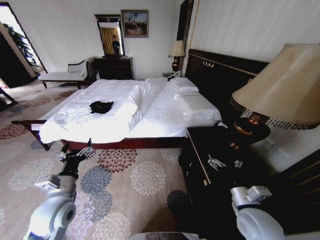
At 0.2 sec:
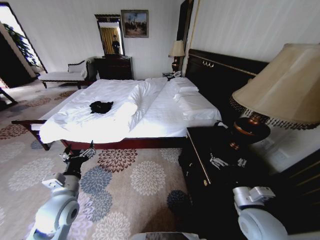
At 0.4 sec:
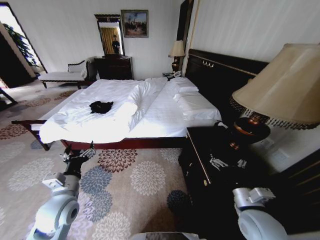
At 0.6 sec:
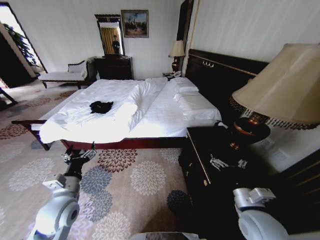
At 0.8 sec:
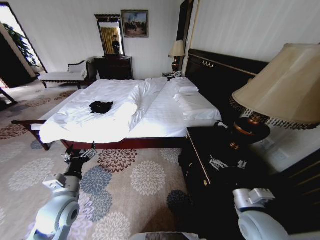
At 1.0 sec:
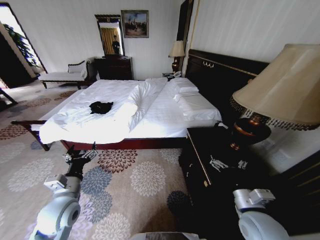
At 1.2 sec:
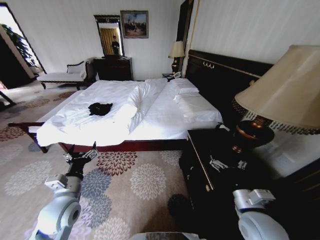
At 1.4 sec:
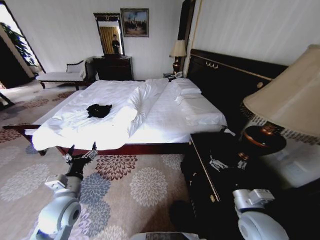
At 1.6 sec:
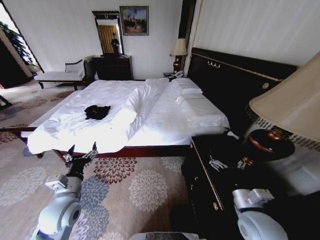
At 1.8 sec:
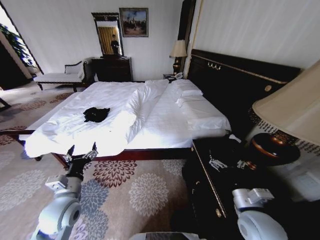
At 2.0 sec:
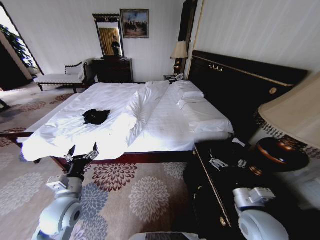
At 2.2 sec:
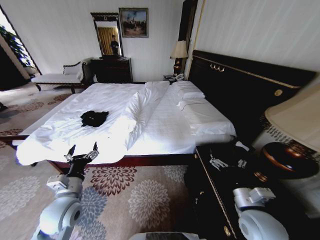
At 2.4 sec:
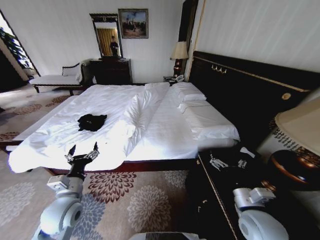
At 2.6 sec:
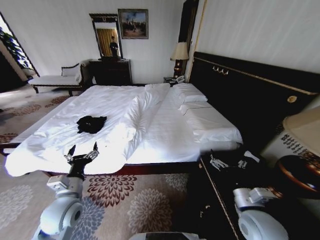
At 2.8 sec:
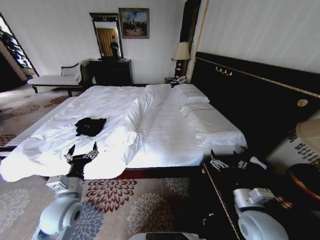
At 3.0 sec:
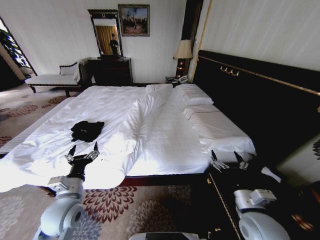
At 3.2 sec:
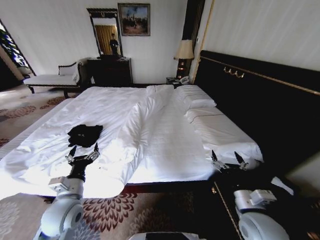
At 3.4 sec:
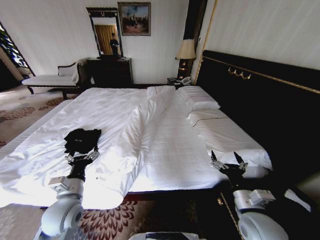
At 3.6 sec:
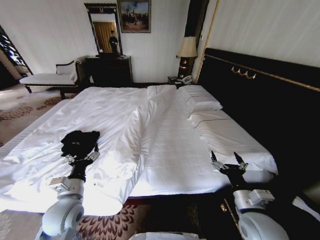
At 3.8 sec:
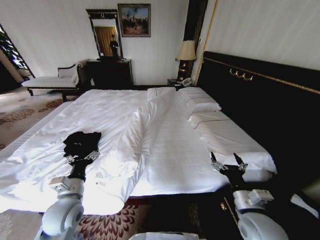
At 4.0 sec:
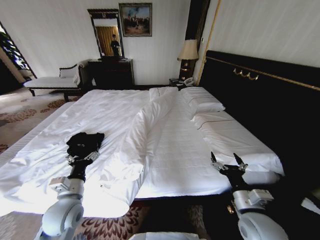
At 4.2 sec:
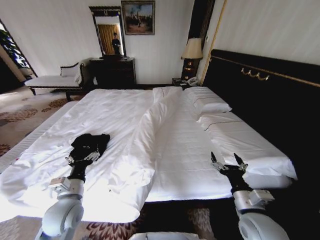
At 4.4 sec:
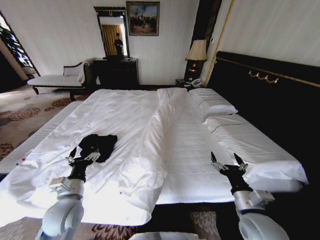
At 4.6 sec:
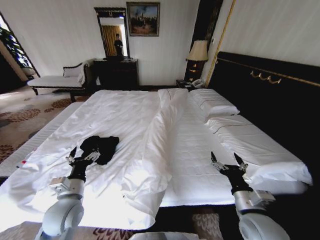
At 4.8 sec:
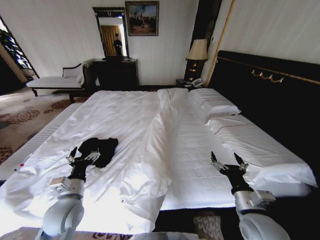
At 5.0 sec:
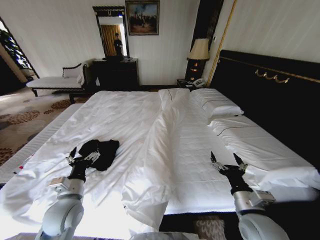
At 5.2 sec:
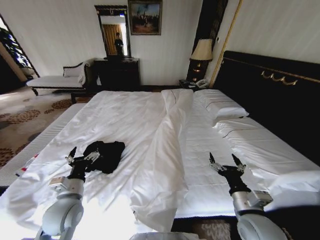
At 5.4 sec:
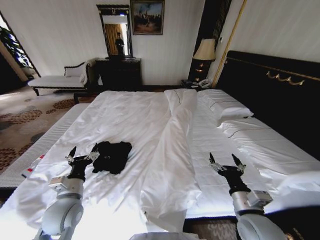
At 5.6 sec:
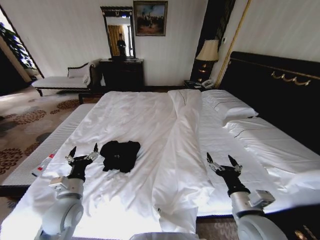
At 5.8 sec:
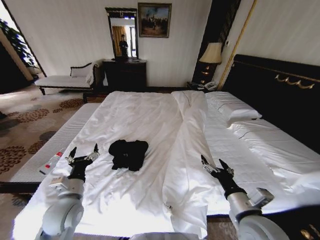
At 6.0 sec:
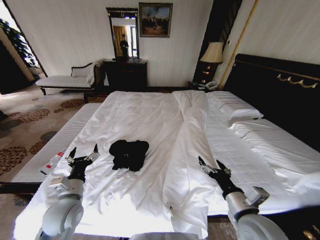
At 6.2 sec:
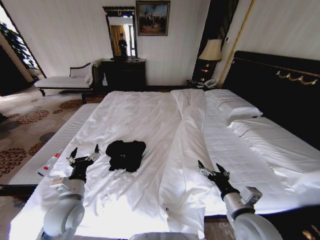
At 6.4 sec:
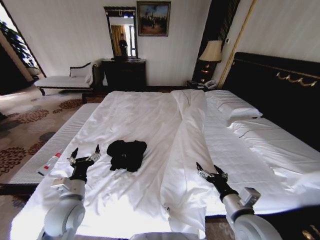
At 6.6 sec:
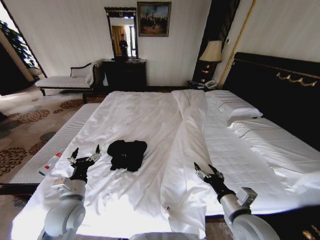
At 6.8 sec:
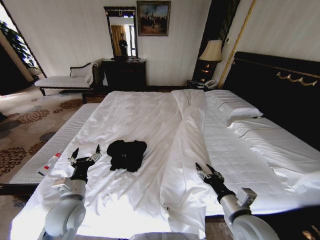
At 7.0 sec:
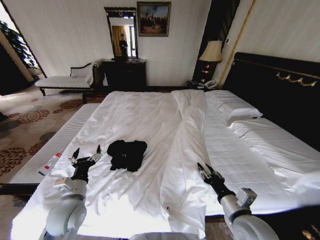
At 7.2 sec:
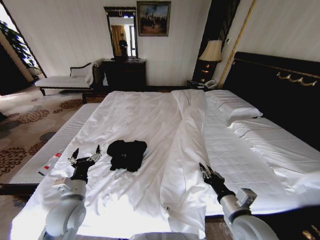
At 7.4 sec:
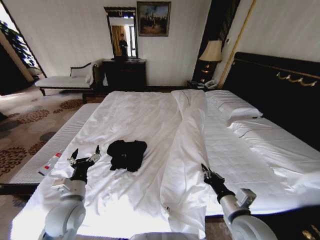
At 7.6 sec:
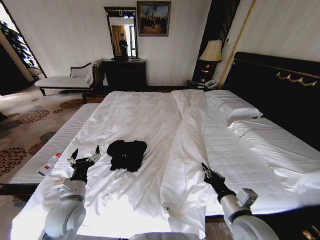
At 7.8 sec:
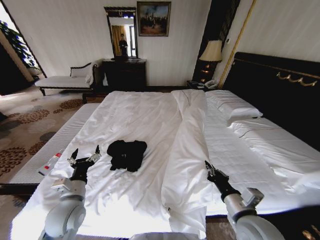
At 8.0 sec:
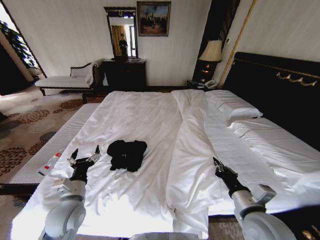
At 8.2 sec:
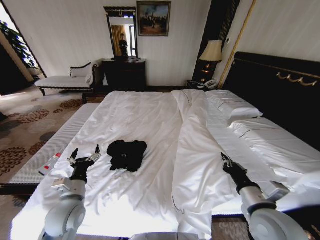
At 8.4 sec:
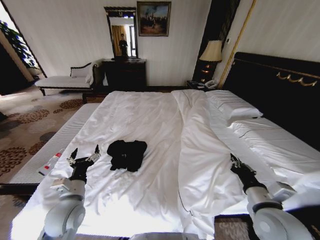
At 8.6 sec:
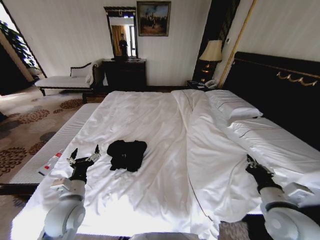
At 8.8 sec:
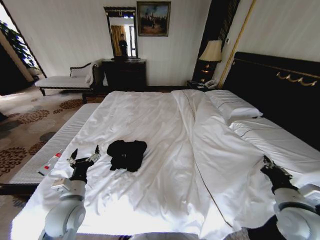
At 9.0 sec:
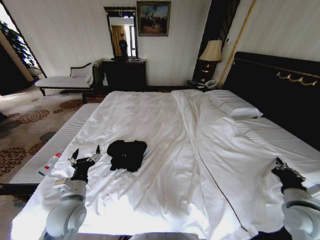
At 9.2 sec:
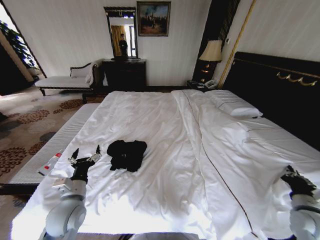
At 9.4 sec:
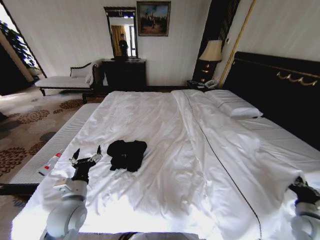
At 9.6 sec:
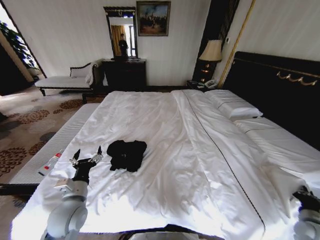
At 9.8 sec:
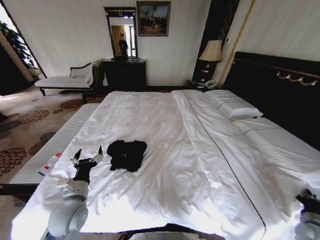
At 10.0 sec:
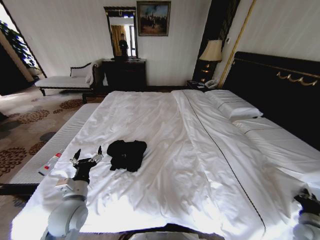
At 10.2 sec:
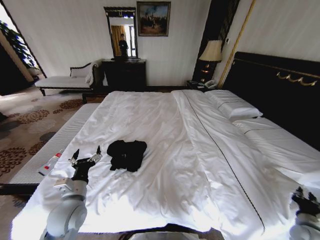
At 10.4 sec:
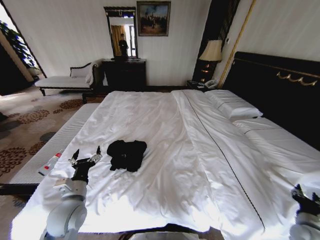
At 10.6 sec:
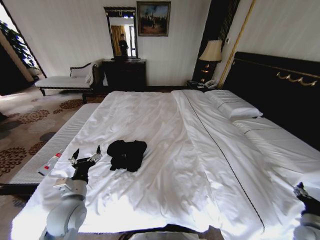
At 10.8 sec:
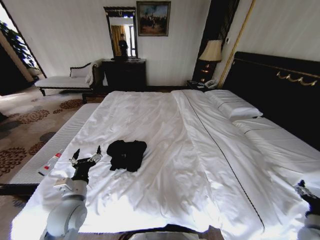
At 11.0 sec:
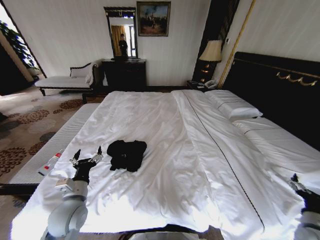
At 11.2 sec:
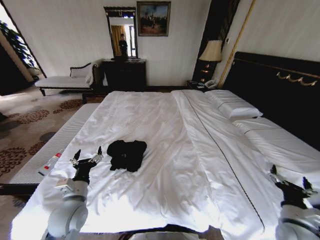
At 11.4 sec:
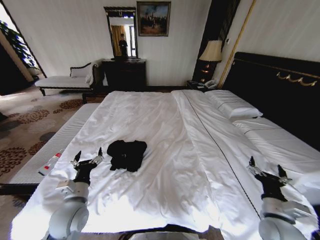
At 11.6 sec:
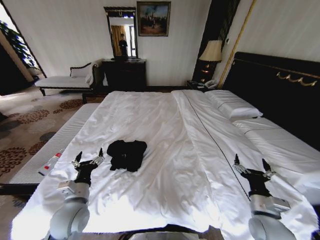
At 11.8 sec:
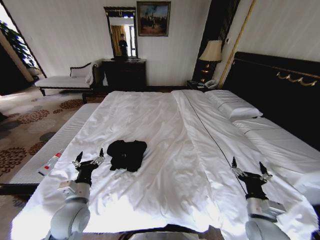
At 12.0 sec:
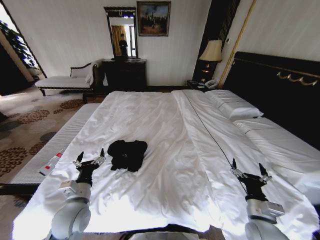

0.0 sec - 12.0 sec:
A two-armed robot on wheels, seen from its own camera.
Task of the whole recording: Fold the clothes on the bed.
6.0 sec - 7.6 sec: The right gripper closes up.
7.6 sec - 9.0 sec: The right gripper goes some 20 cm to the right.
9.0 sec - 10.4 sec: The right gripper is displaced downward and to the right by approximately 15 cm, and opens its fingers.
10.4 sec - 12.0 sec: The right gripper shifts about 20 cm to the left, and opens.

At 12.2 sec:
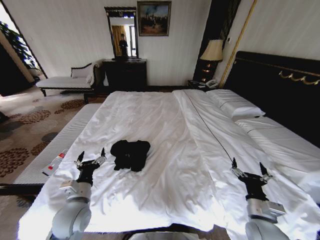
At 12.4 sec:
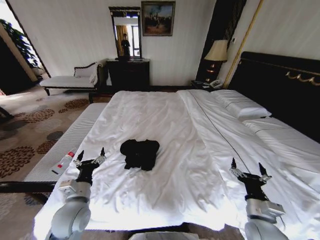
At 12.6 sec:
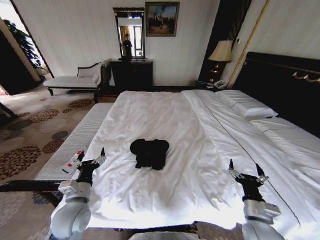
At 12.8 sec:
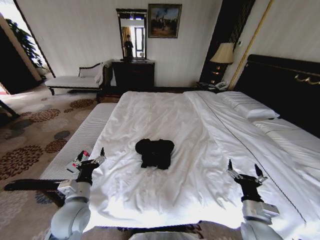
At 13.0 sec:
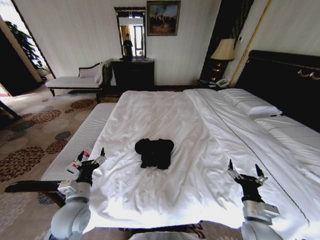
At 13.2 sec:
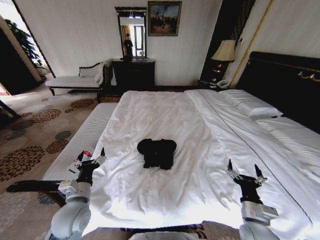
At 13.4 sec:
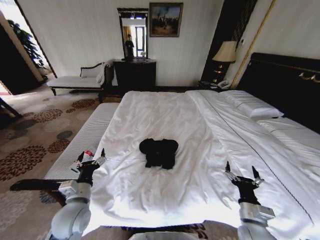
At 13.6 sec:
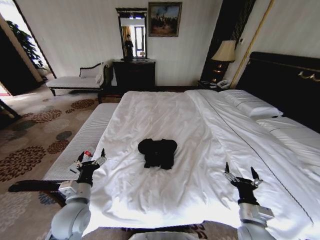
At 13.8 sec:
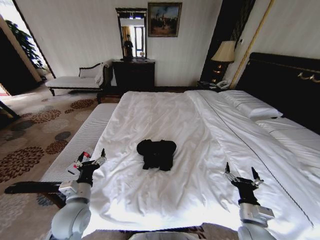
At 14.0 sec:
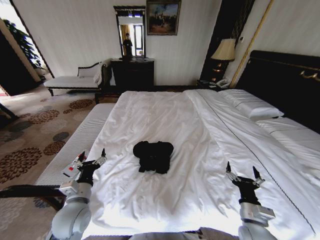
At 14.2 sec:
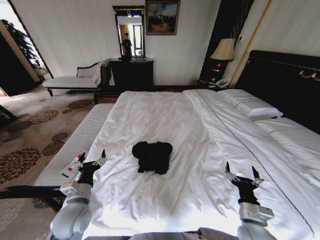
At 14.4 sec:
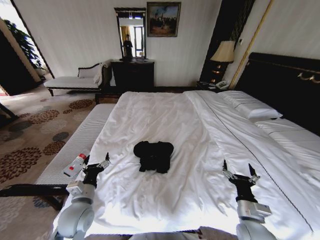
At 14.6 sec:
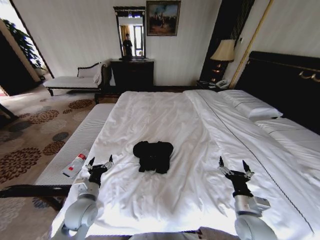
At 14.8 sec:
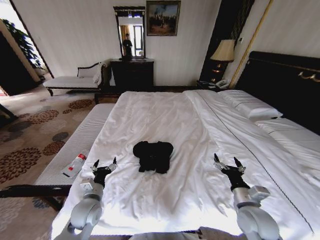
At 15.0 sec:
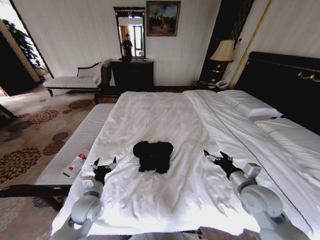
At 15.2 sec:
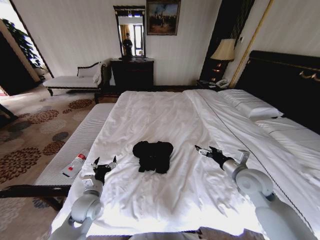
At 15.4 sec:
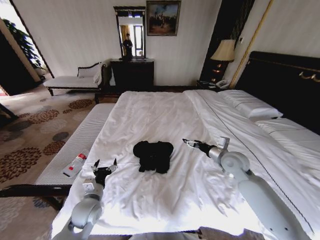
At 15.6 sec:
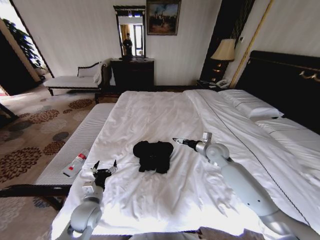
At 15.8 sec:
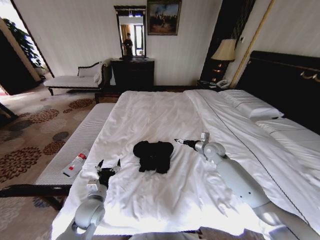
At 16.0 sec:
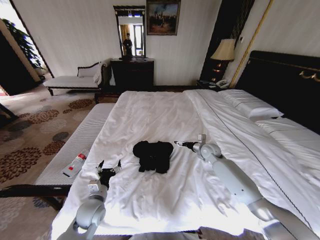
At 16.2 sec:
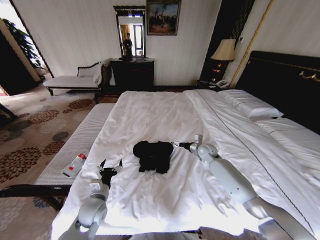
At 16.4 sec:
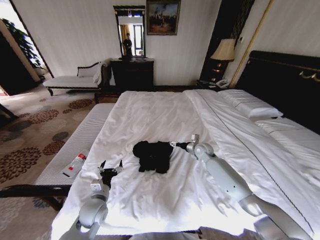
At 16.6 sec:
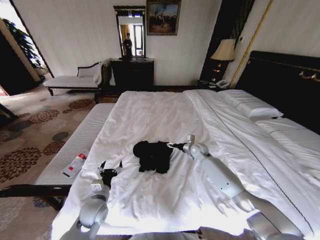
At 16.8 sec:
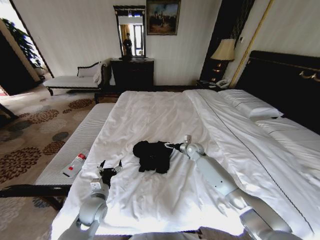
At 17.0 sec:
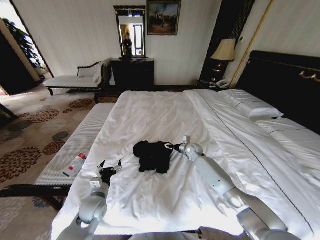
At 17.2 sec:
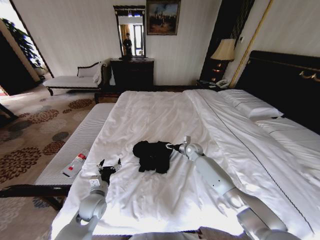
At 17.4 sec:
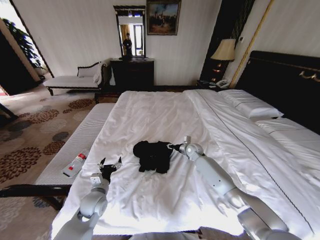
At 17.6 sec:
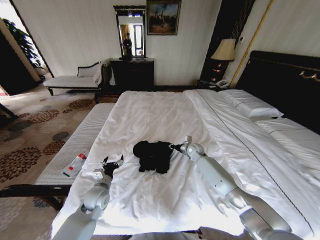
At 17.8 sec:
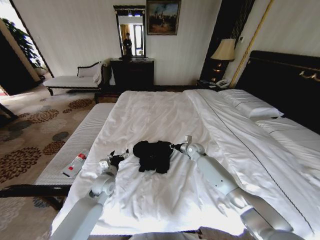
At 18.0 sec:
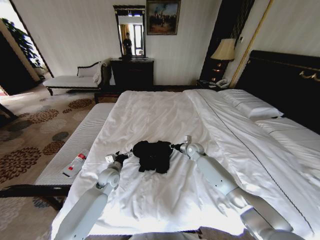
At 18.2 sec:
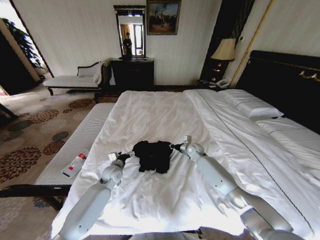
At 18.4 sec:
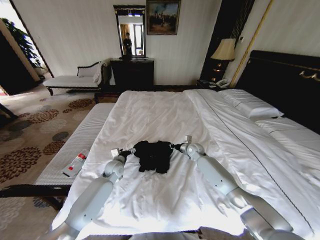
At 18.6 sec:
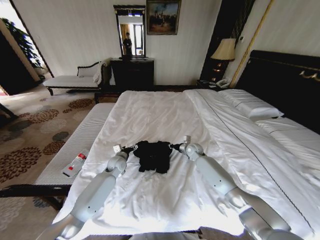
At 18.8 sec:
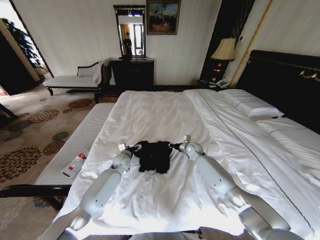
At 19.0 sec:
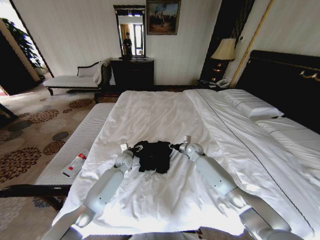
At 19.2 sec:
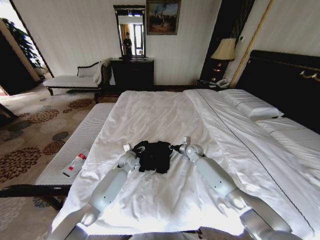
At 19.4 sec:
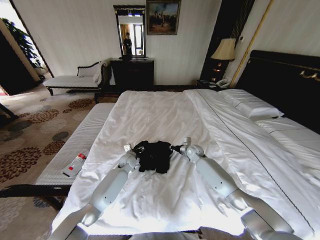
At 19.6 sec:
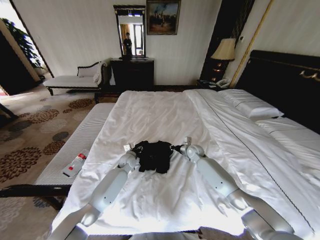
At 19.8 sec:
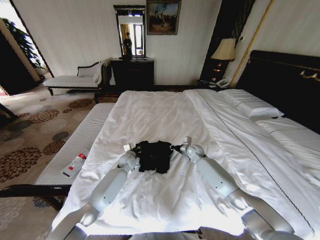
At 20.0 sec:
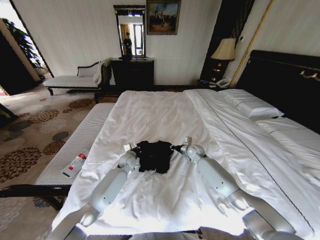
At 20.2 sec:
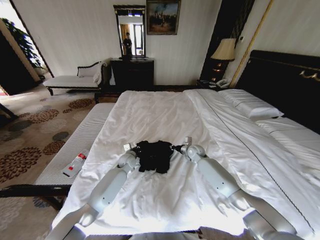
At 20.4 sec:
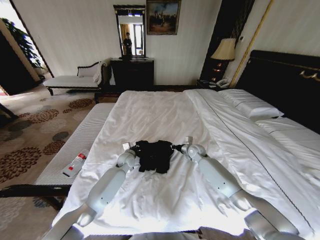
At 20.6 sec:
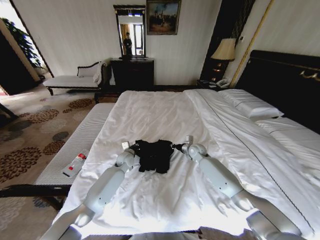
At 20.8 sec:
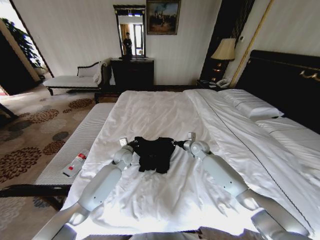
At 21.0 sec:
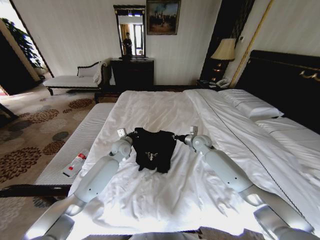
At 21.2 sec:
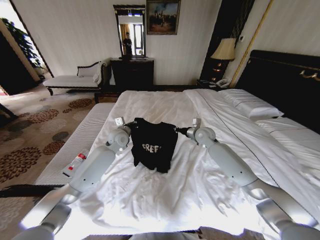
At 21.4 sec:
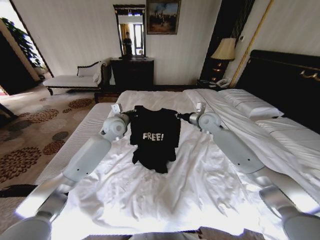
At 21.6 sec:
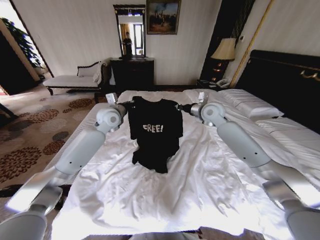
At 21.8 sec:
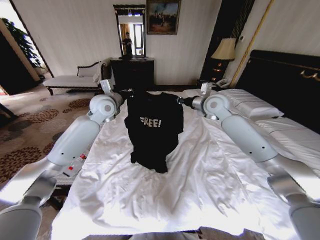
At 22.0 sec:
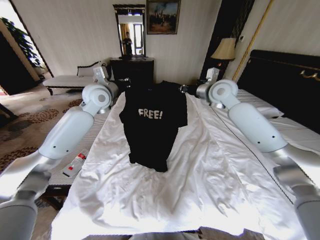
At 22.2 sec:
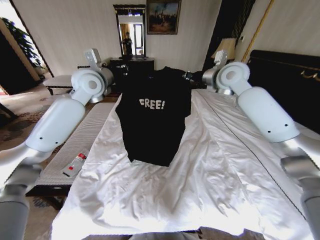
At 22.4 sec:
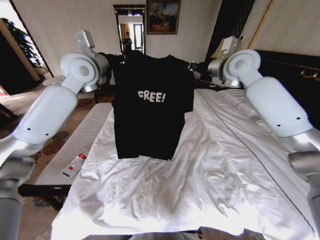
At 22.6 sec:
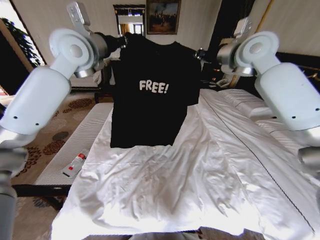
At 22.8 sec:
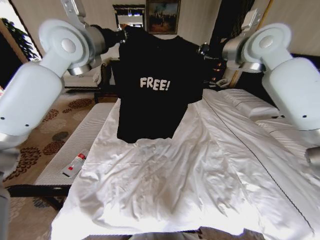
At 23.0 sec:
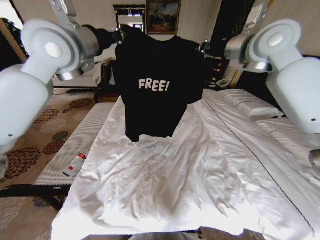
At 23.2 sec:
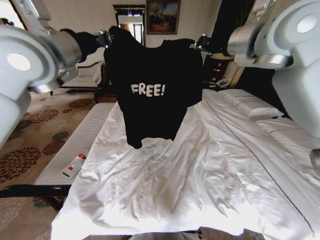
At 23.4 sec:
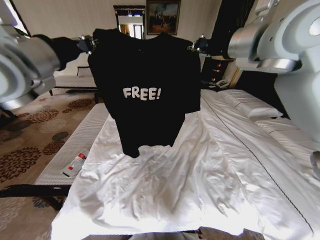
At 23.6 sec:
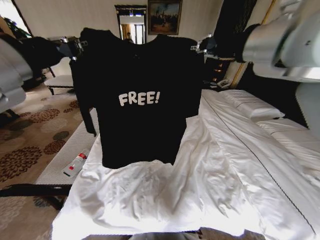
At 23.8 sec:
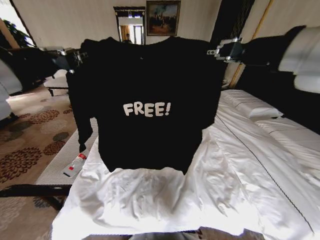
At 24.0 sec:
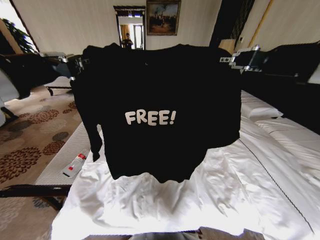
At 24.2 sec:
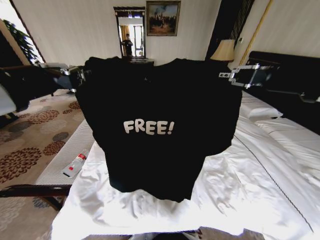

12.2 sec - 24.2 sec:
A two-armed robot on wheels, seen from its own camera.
Task of the whole recording: Fold the clothes on the bed.
13.8 sec - 15.2 sec: The left gripper travels downward by some 5 cm. The right gripper heads forward and upward, covering roughly 20 cm.
15.2 sec - 16.6 sec: The right gripper heads forward and downward, covering roughly 25 cm.
16.6 sec - 18.2 sec: The left gripper heads forward, covering some 15 cm. The right gripper closes its fingers.
18.2 sec - 19.8 sec: The left gripper shifts approximately 10 cm forward and to the right, and closes up.
19.8 sec - 21.2 sec: The grippers both shift upward by about 15 cm. The left gripper closes up.
21.2 sec - 22.6 sec: The grippers both shift upward by approximately 35 cm.
22.6 sec - 24.2 sec: Both grippers move backward, some 30 cm.
